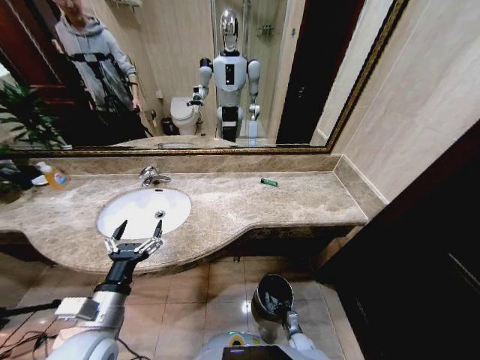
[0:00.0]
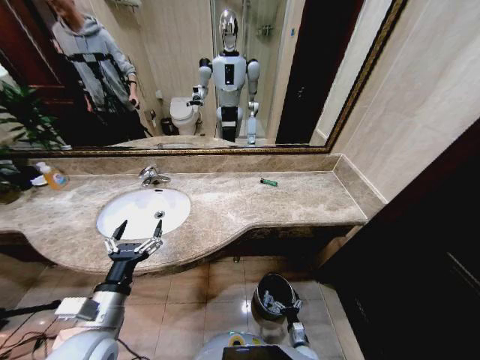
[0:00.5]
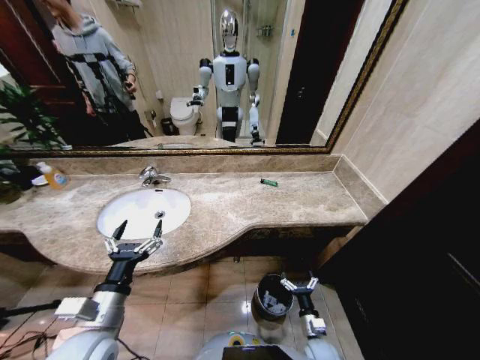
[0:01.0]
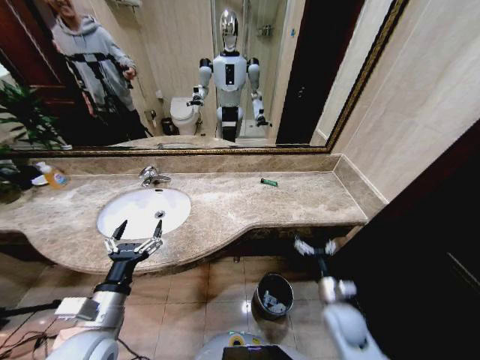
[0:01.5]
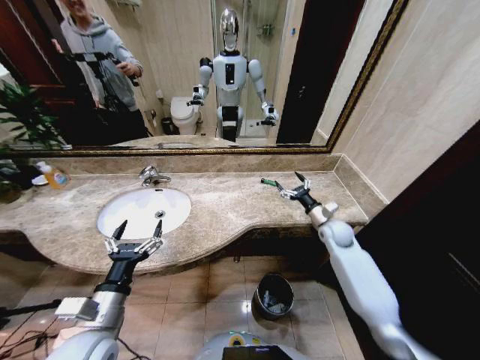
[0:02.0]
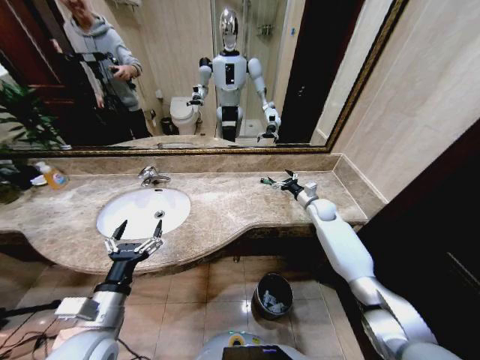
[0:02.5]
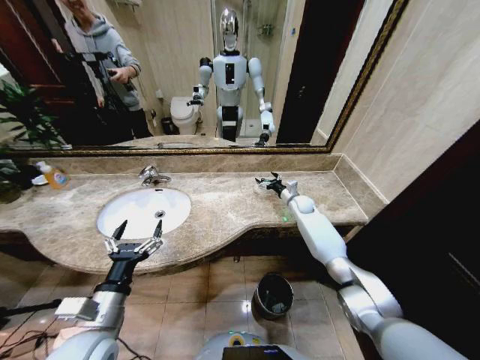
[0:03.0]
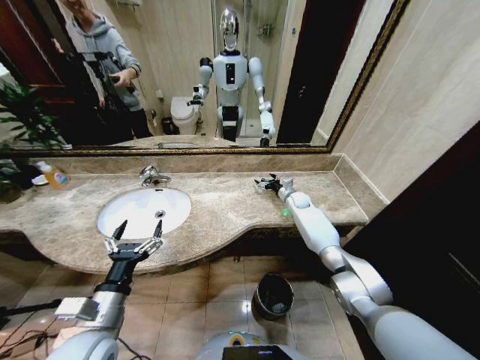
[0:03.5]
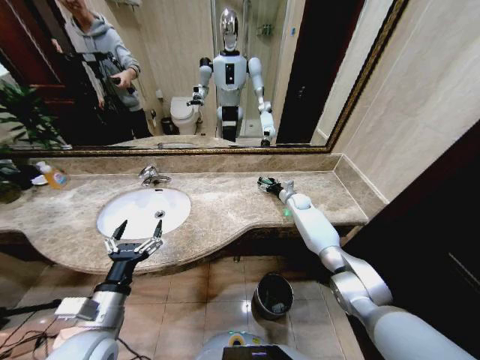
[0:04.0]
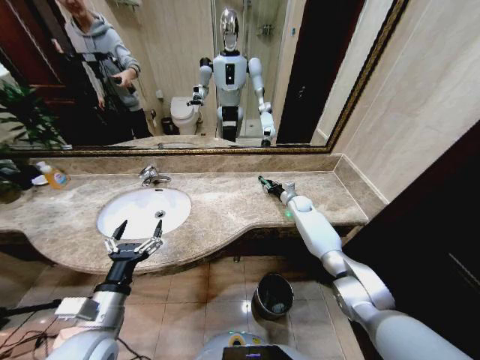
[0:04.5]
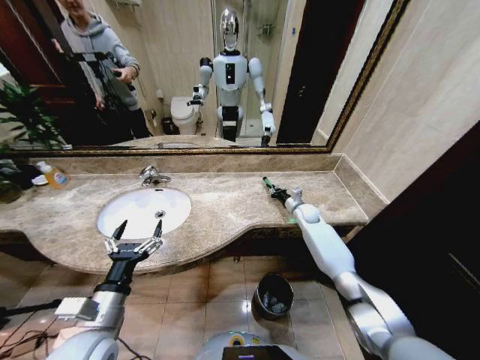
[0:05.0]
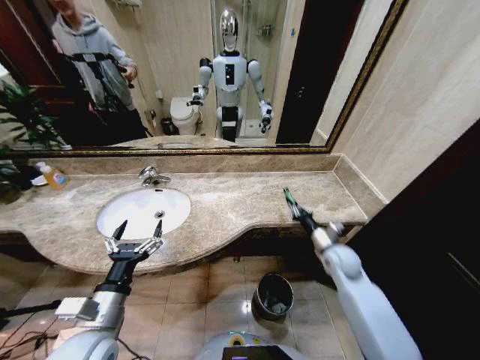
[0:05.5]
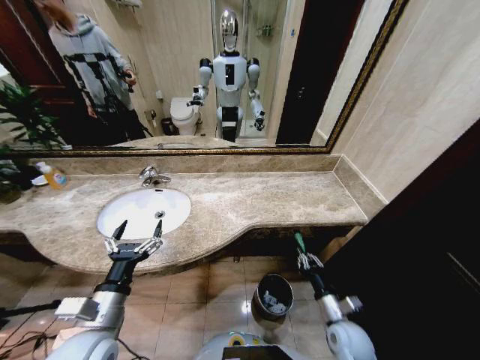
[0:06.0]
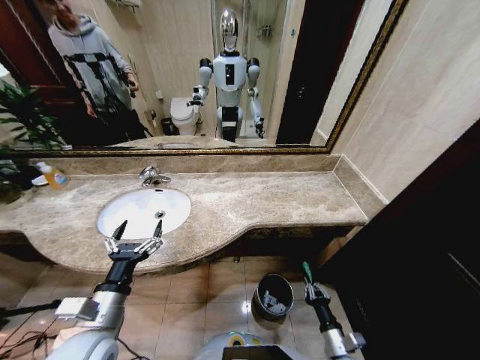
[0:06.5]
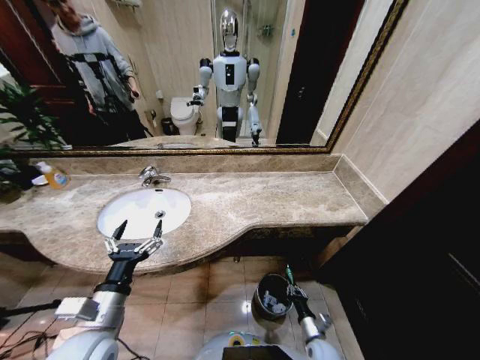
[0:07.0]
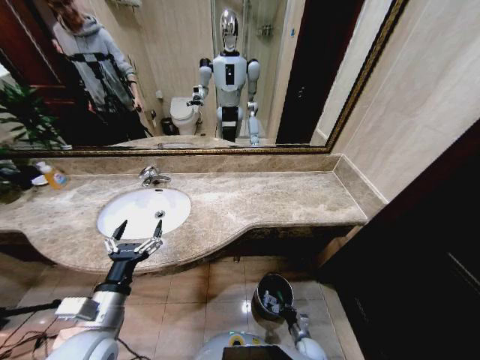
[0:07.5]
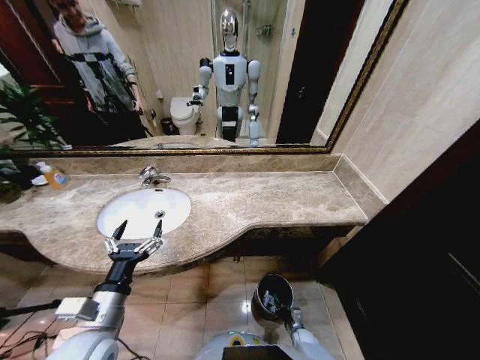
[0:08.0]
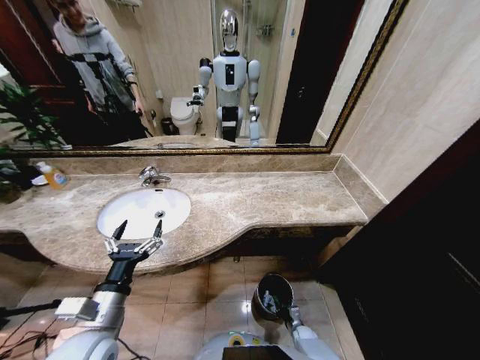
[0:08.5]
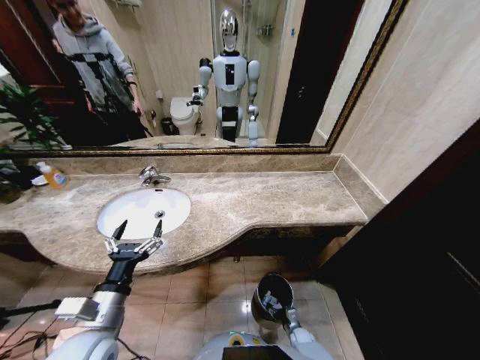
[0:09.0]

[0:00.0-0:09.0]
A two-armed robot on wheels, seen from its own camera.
Task of the whole recording: Pick up the trash from the sink and place it in the trash bin.
0:00.0 to 0:02.0: The right gripper goes roughly 50 cm upward and forward, and opens up.
0:02.0 to 0:04.5: The right gripper shifts about 15 cm forward, and closes.
0:04.5 to 0:07.0: The right gripper moves backward and downward, some 50 cm.
0:07.0 to 0:09.0: The right gripper goes some 15 cm downward, and opens up.

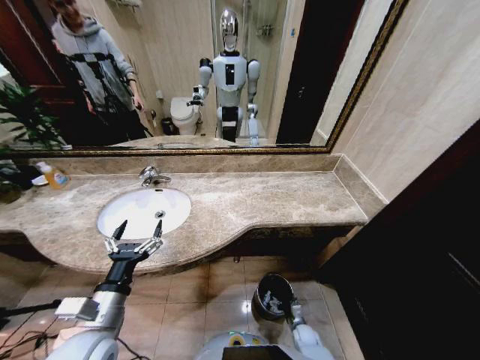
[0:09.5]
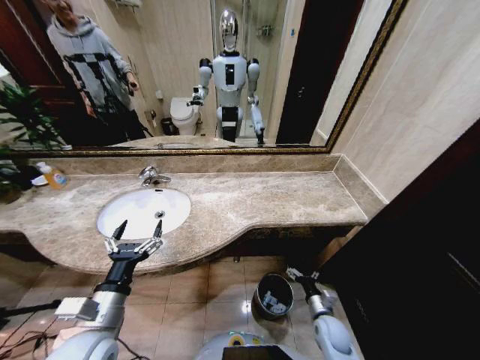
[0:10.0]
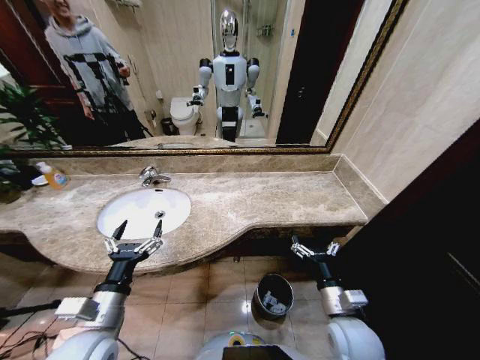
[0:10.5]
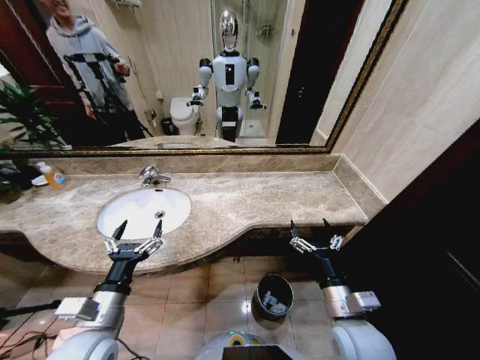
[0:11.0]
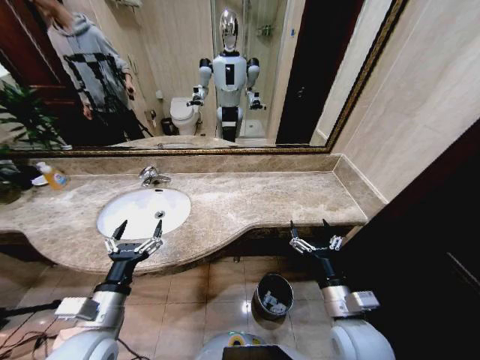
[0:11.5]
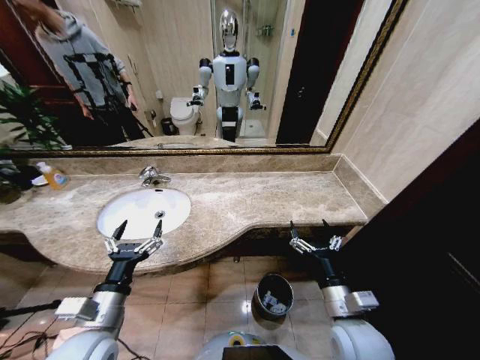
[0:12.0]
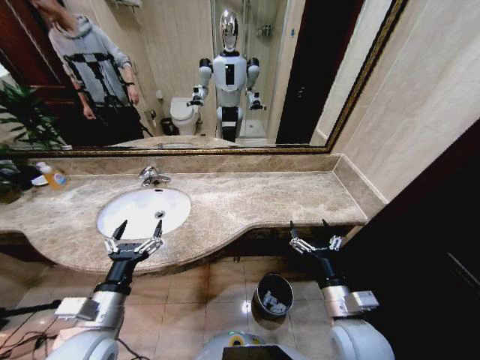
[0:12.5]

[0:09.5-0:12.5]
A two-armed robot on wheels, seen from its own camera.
Task of the whole recording: Pick up the trash from the sink and place it in the trash bin.
0:09.5 to 0:11.0: The right gripper heads upward, covering some 40 cm.
0:11.0 to 0:12.5: Neither gripper changes place.

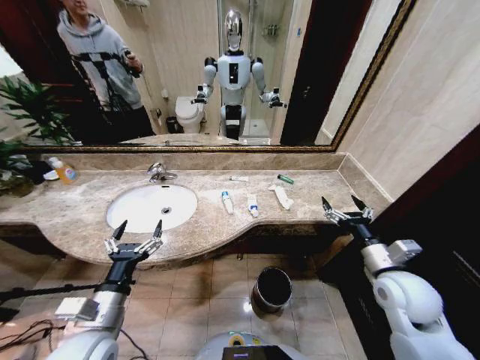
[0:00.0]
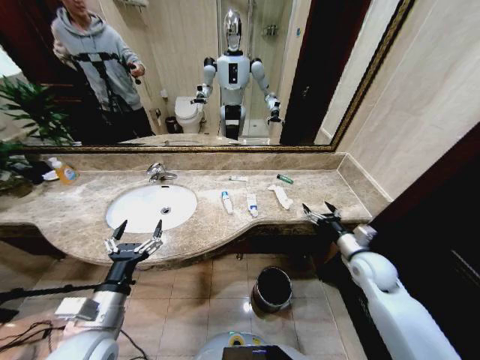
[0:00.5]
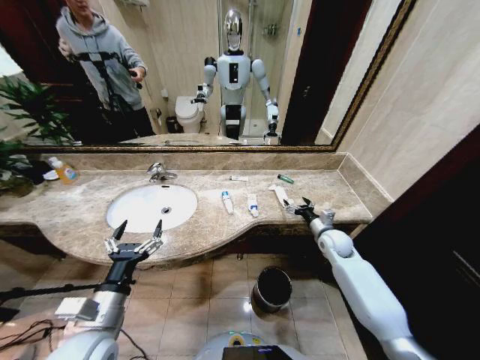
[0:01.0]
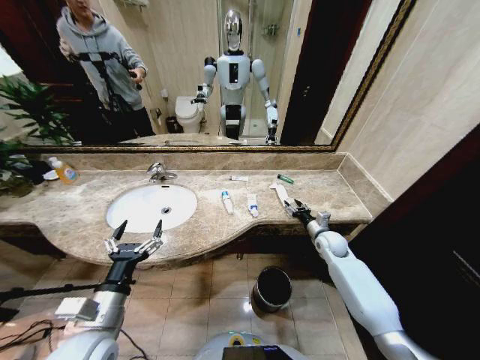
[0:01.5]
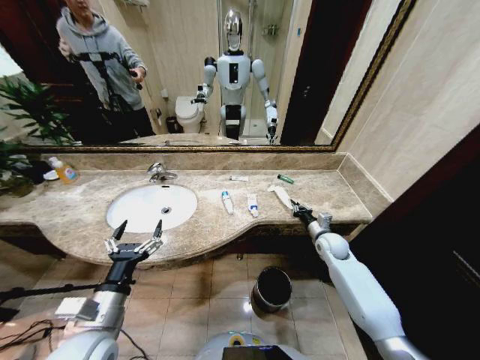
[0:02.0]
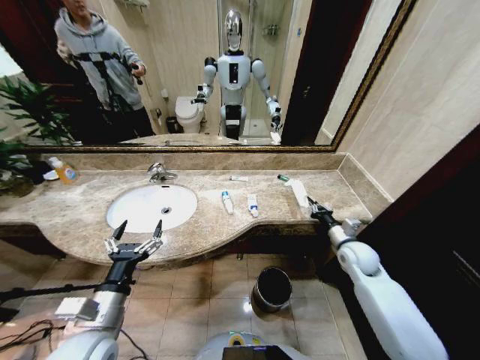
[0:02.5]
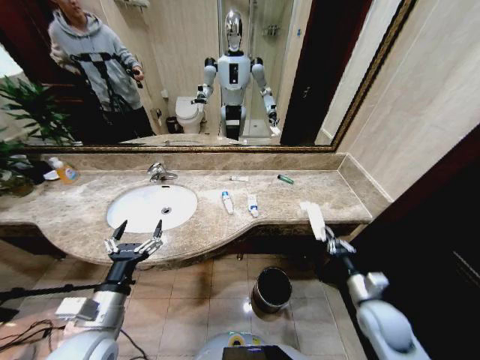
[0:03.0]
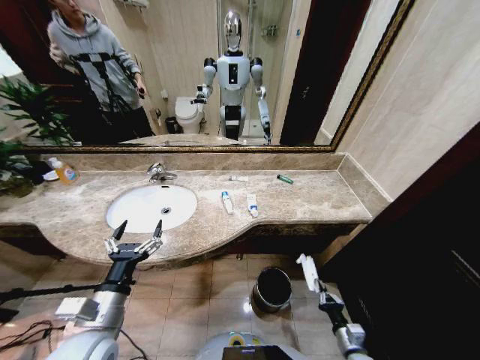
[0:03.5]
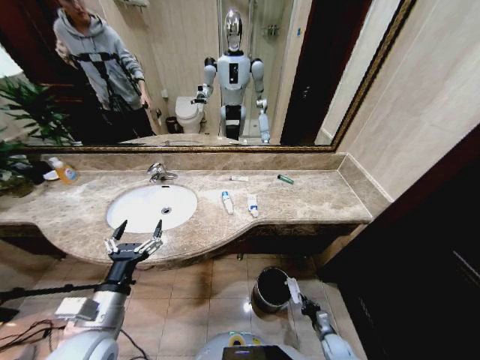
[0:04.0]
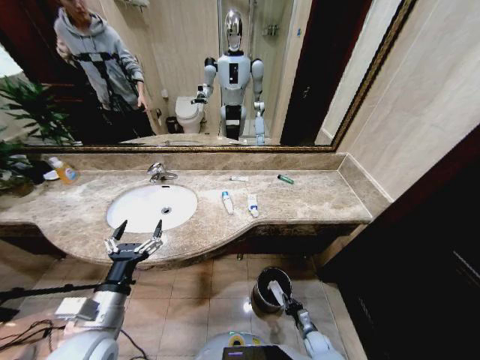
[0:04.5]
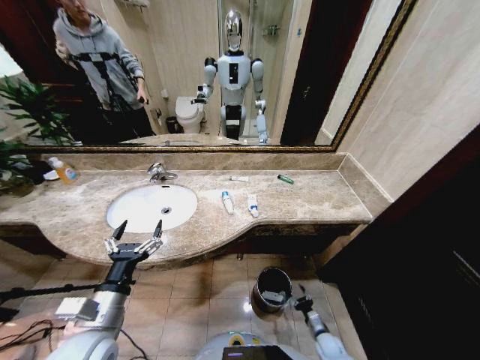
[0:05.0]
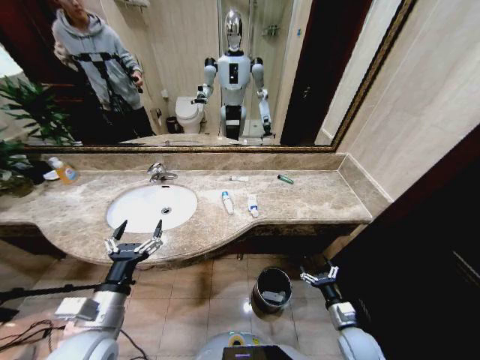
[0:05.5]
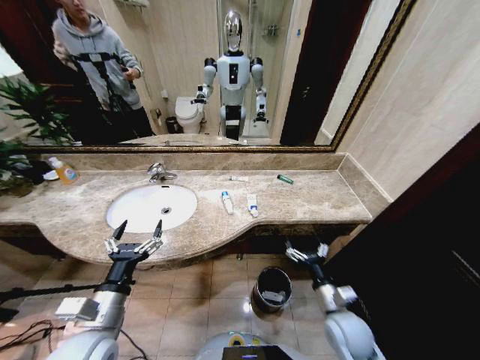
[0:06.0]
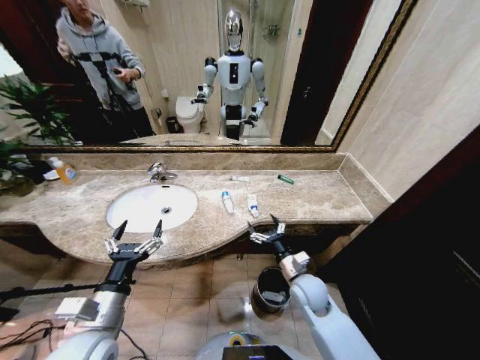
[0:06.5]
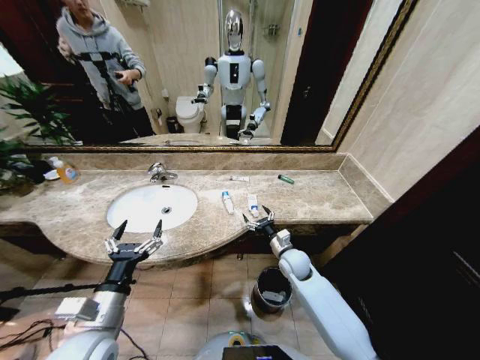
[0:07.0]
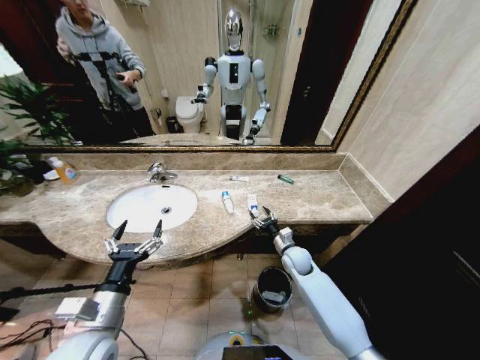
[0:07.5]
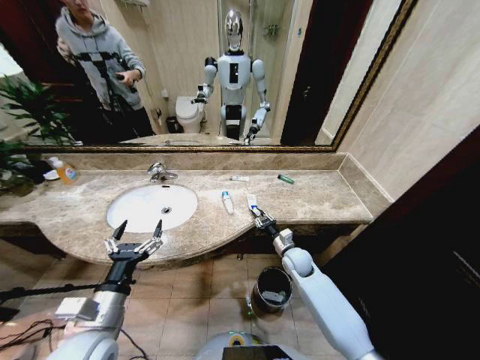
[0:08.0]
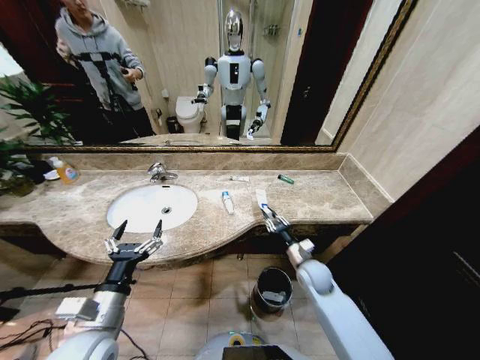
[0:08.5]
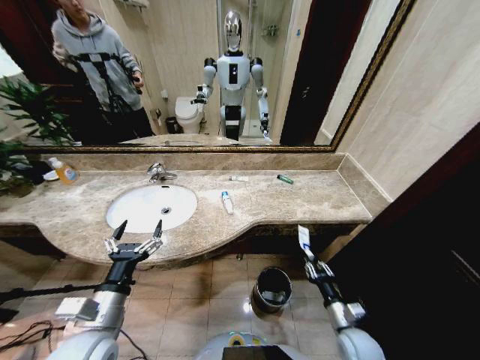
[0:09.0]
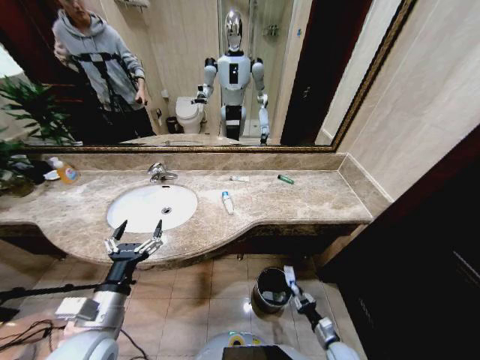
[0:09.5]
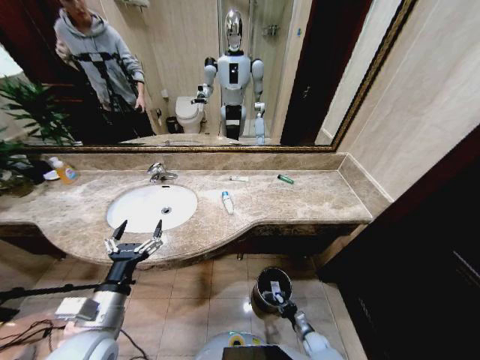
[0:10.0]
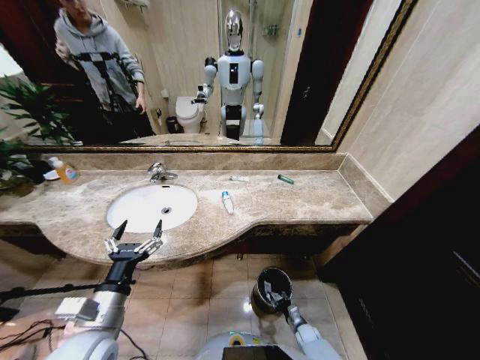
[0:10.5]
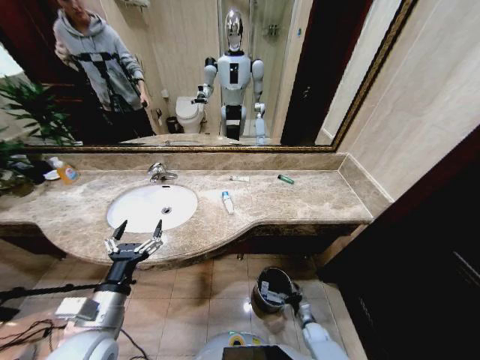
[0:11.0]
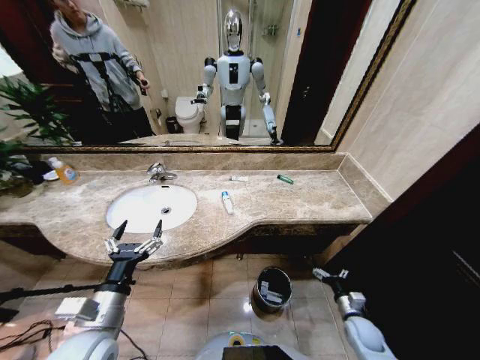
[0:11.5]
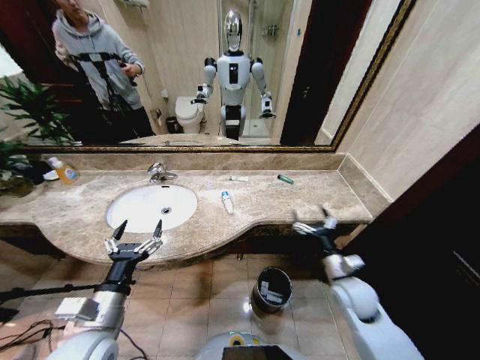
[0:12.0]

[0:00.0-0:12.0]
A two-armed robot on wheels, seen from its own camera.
Task of the whole recording: Pick up the trash from the sink and place it in the trash bin.
0:02.0 to 0:04.0: The right gripper heads downward and backward, covering approximately 40 cm.
0:04.0 to 0:06.0: The right gripper travels upward by some 30 cm, and opens up.
0:06.0 to 0:08.0: The right gripper is displaced forward by roughly 20 cm, and closes.
0:08.0 to 0:10.0: The right gripper travels downward and backward by about 35 cm.
0:10.0 to 0:12.0: The right gripper is displaced upward by approximately 35 cm, and opens.

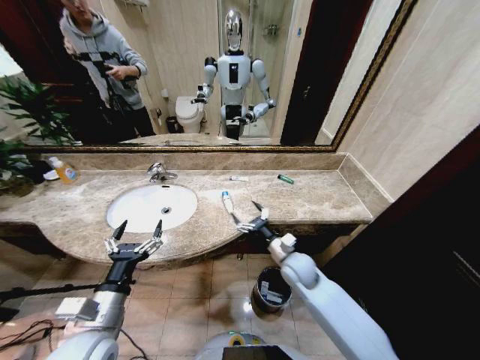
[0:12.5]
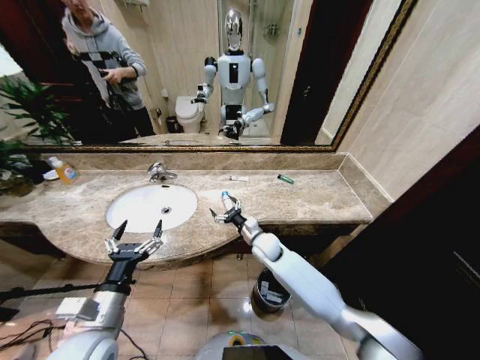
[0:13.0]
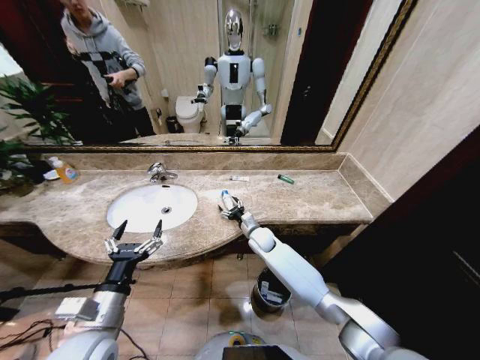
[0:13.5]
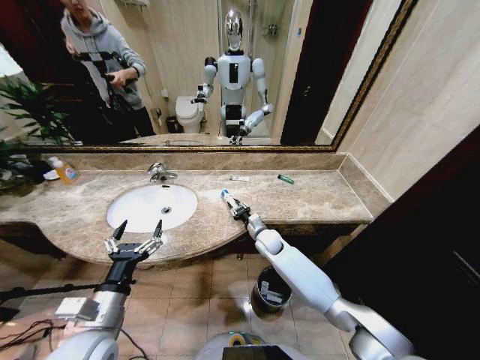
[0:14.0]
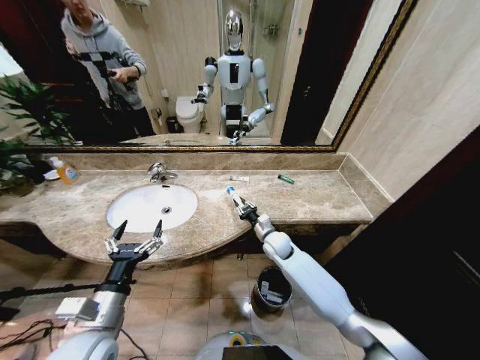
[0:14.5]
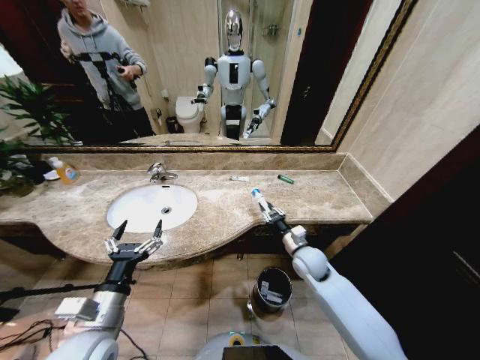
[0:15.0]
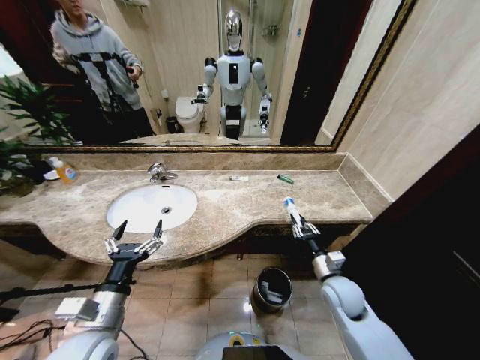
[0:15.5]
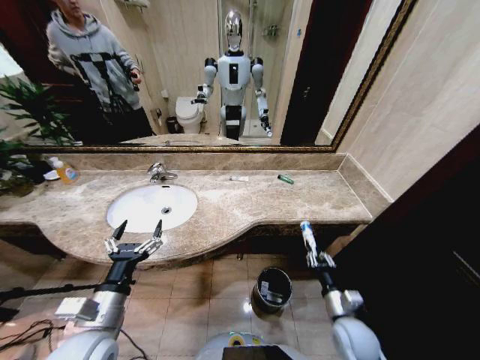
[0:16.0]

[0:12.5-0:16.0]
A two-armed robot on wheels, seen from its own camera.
Task of the whole recording: Pick up the trash from the sink and place it in the trash bin.
0:12.5 to 0:14.5: The right gripper travels forward by some 10 cm, and closes its fingers.
0:14.5 to 0:16.0: The right gripper moves backward and to the right, about 30 cm.
